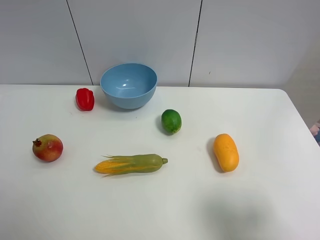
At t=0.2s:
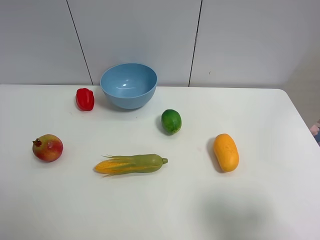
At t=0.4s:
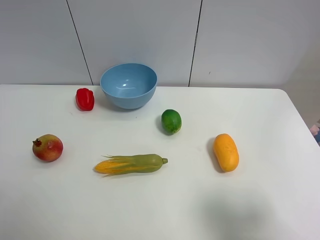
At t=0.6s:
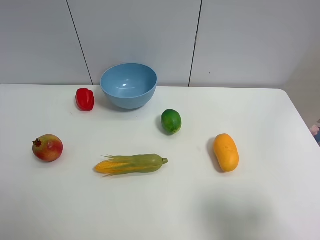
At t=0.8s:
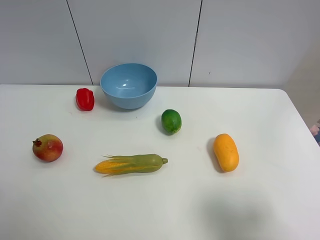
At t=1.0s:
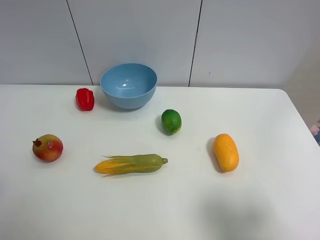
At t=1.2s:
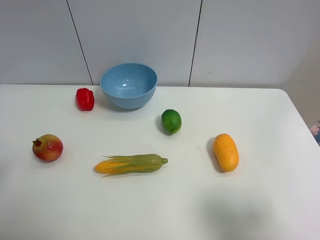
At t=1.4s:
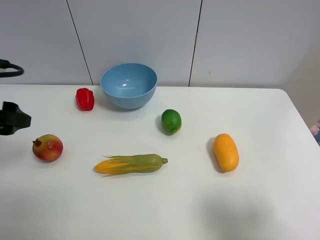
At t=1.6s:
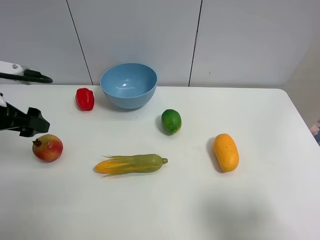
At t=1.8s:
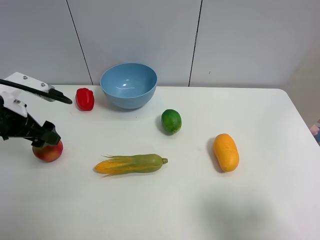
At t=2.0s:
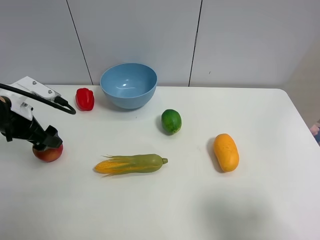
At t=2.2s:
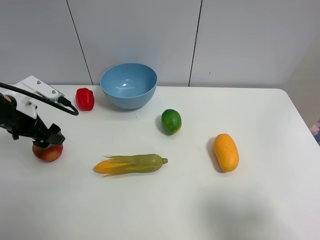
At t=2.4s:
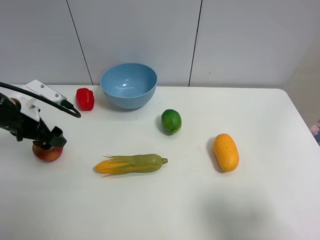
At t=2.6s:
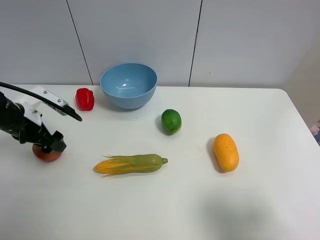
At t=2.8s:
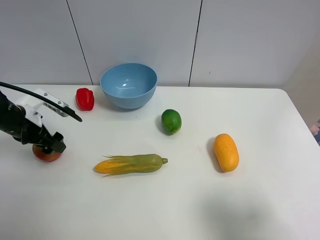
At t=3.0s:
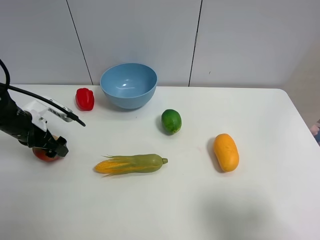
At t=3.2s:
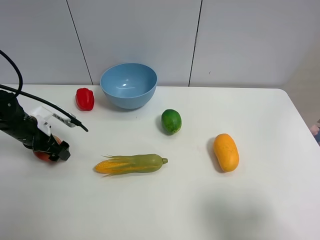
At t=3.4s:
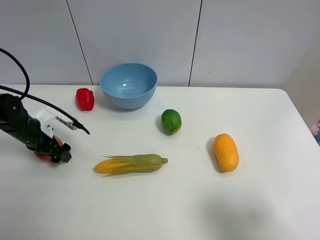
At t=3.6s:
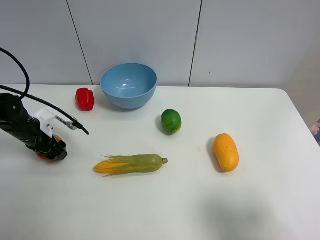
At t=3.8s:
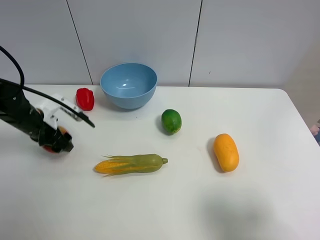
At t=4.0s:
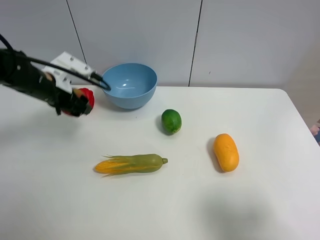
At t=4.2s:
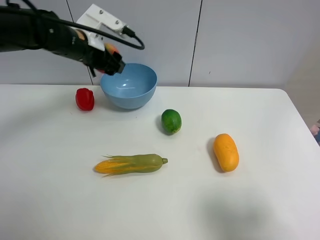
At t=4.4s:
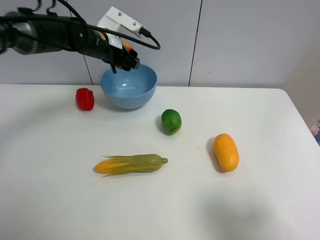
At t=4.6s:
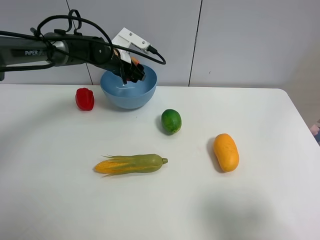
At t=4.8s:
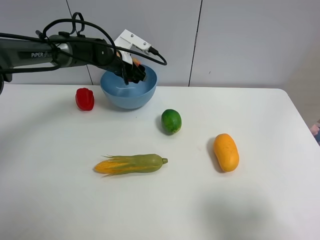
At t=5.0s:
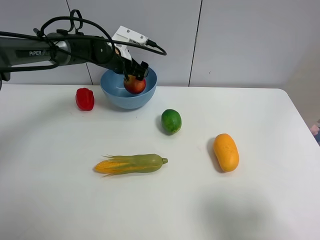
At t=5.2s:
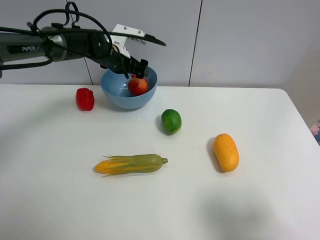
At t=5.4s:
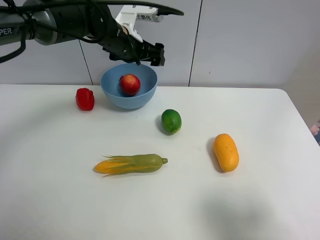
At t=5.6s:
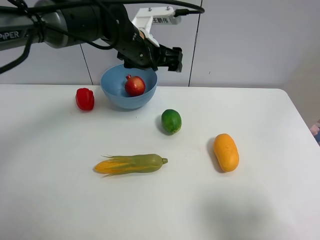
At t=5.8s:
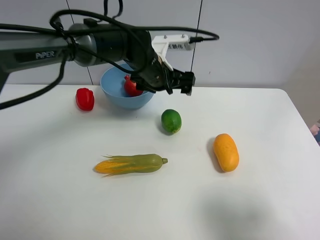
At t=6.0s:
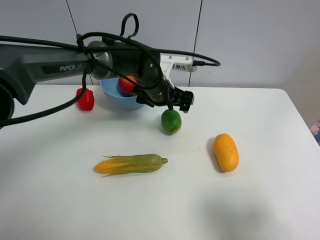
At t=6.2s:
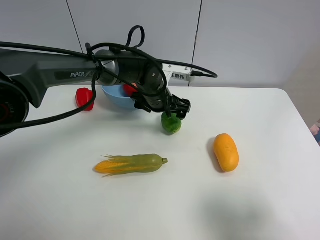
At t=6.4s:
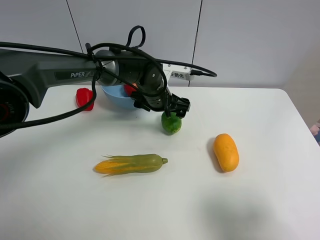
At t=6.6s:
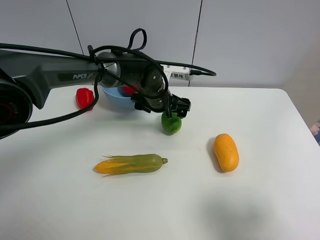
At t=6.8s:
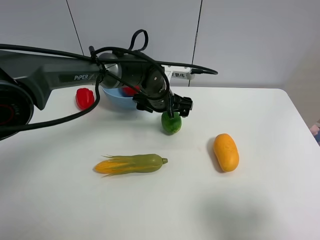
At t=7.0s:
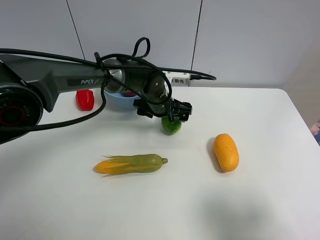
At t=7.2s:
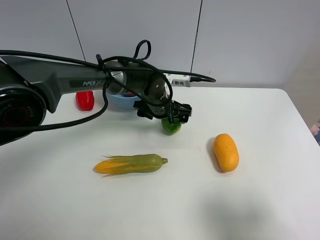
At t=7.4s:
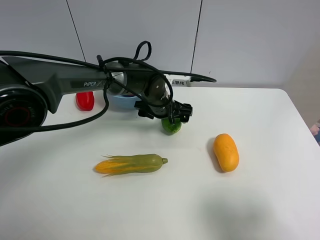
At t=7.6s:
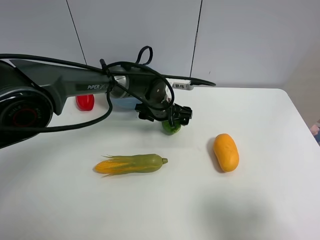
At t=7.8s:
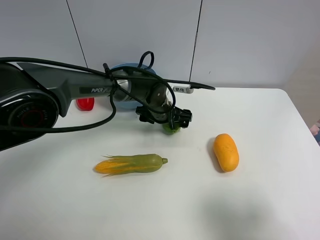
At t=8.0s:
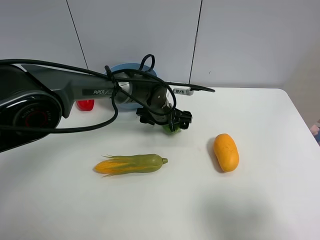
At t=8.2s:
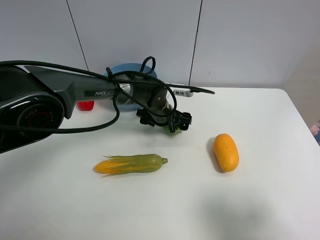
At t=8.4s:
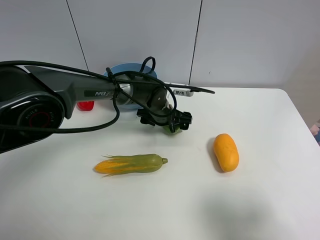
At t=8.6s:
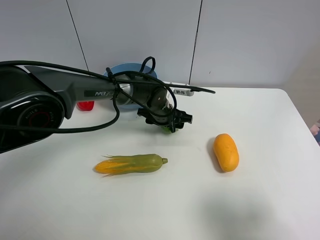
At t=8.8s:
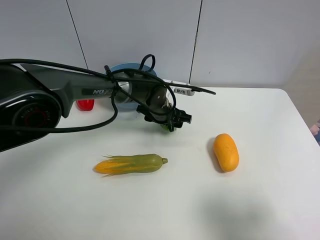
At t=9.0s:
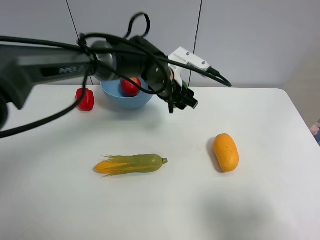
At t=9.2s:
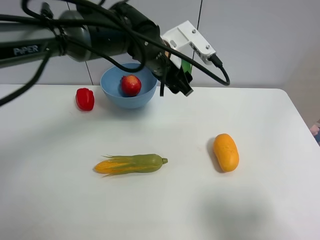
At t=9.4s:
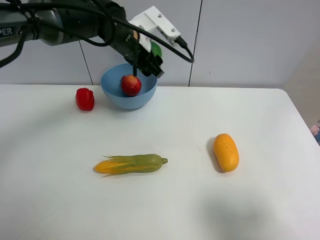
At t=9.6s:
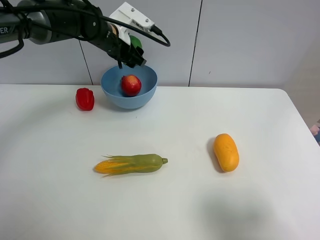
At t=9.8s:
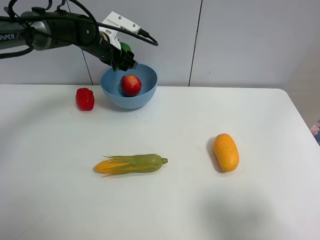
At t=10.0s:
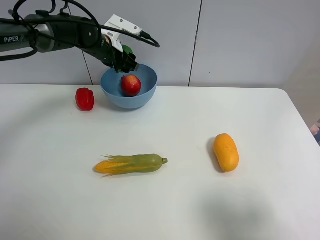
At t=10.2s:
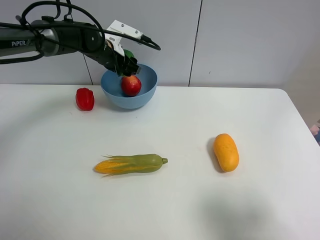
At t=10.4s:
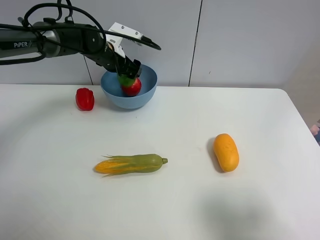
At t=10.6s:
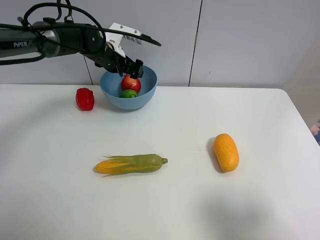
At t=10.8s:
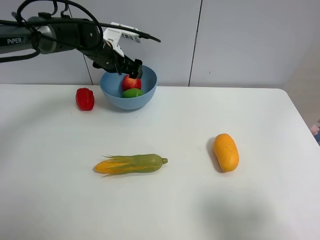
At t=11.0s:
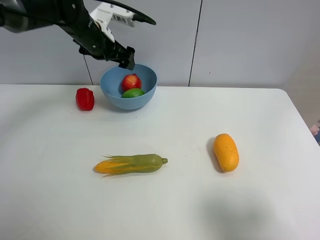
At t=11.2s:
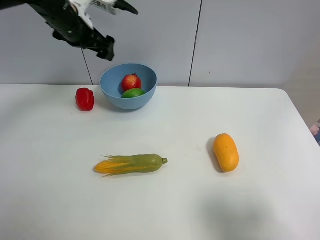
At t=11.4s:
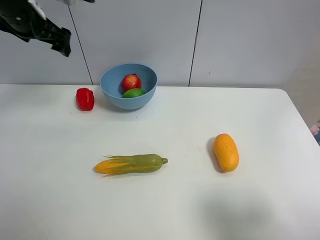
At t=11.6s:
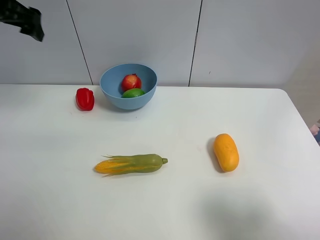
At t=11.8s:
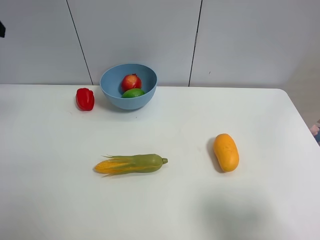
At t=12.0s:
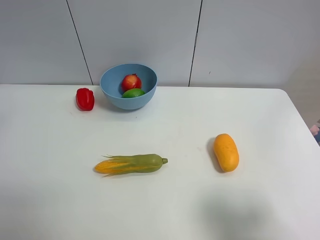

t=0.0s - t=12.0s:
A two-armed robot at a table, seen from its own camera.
Task of the whole recording: Put the three fruits on the table into a bowl.
Step, t=0.0s - t=3.6s: Grasp the pomegranate with left gripper.
Step, t=3.8s - t=5.2s: Place the pomegranate in the blue bowl with left gripper.
Step, t=5.4s - t=8.6s: Grasp the green lemon with left gripper.
Step, t=8.8s - t=10.6s: Place the green lemon in the blue bowl with left gripper.
t=0.0s - t=1.6s: The left gripper shifts about 25 cm forward.
t=1.6s - t=3.0s: The left gripper goes approximately 15 cm downward and forward.
t=3.0s - t=4.4s: The left gripper goes some 25 cm to the right, forward and upward, and closes.
t=4.4s - t=6.0s: The left gripper shifts approximately 15 cm to the right, backward and downward, and opens.
t=6.0s - t=7.6s: The left gripper shifts about 5 cm downward.
t=7.6s - t=9.0s: The left gripper goes some 10 cm upward, and closes up.
t=9.0s - t=10.4s: The left gripper travels to the left and forward by some 20 cm, and opens up.
t=10.4s - t=12.0s: The left gripper shifts roughly 40 cm backward, upward and to the left.

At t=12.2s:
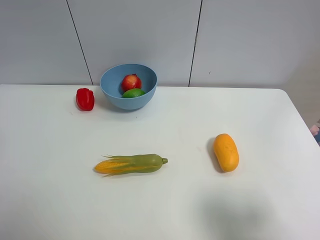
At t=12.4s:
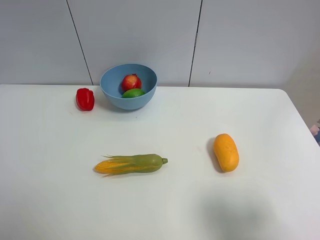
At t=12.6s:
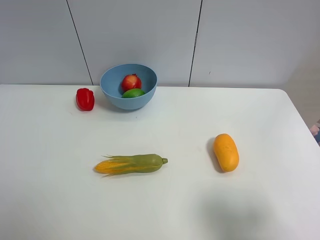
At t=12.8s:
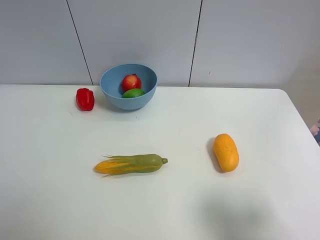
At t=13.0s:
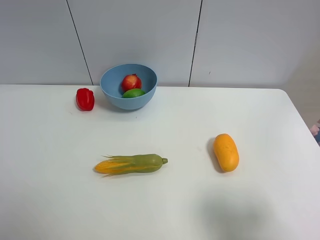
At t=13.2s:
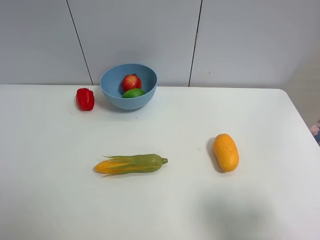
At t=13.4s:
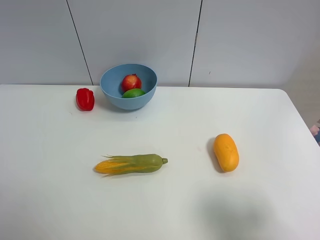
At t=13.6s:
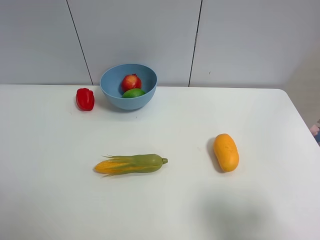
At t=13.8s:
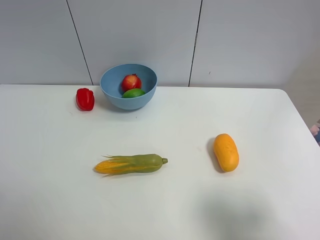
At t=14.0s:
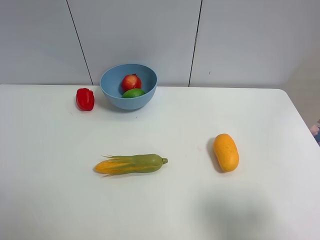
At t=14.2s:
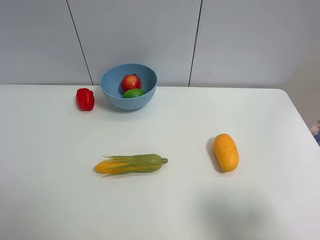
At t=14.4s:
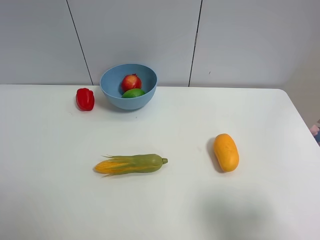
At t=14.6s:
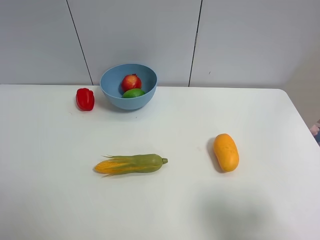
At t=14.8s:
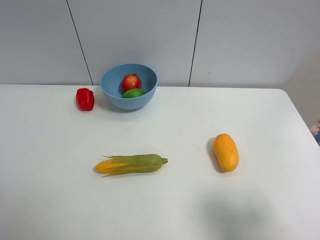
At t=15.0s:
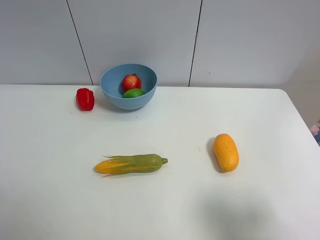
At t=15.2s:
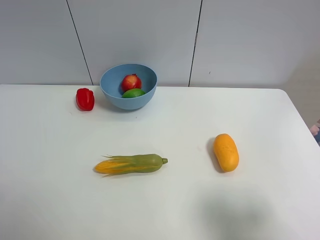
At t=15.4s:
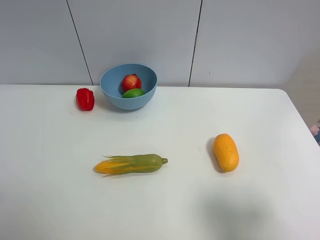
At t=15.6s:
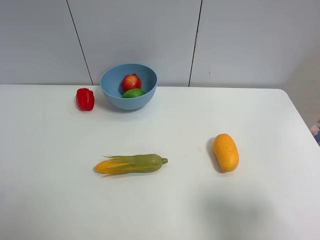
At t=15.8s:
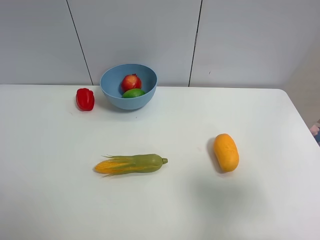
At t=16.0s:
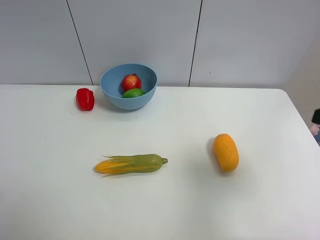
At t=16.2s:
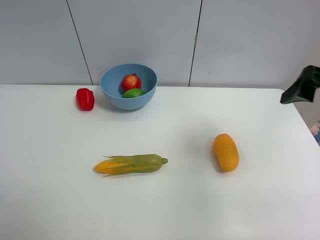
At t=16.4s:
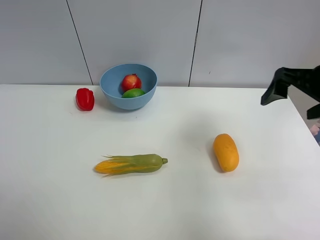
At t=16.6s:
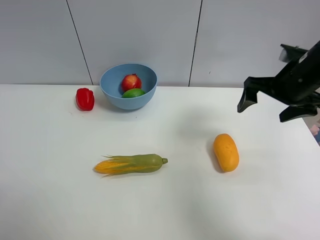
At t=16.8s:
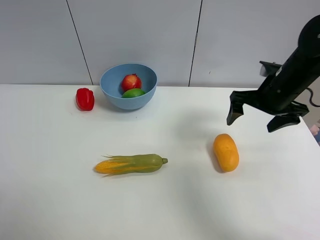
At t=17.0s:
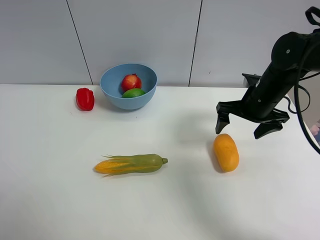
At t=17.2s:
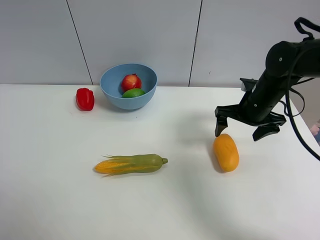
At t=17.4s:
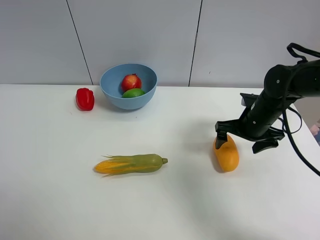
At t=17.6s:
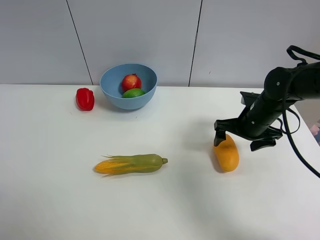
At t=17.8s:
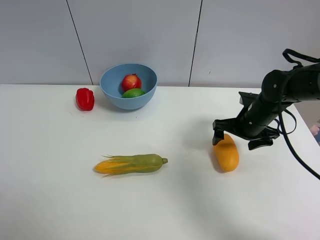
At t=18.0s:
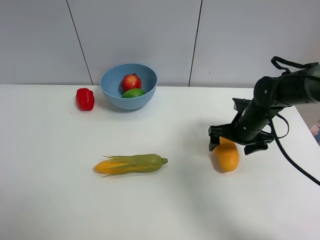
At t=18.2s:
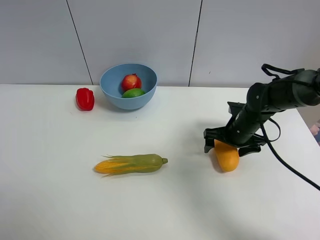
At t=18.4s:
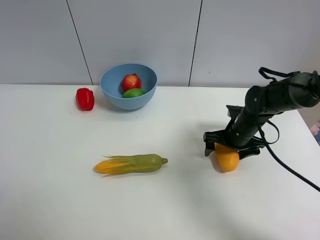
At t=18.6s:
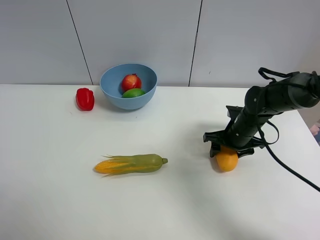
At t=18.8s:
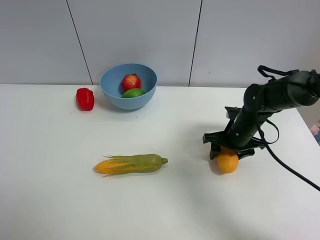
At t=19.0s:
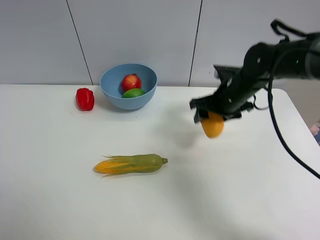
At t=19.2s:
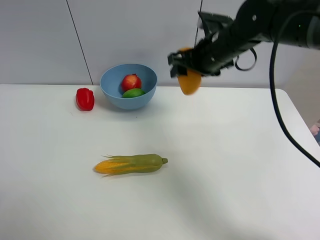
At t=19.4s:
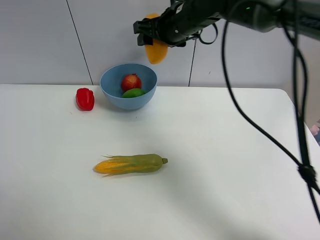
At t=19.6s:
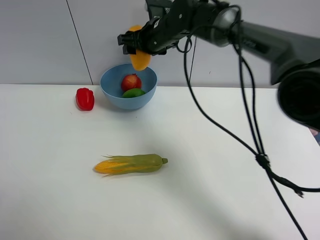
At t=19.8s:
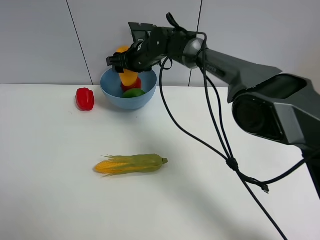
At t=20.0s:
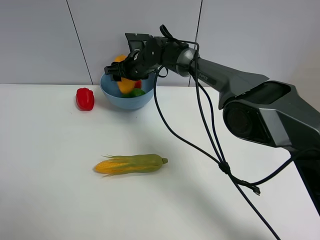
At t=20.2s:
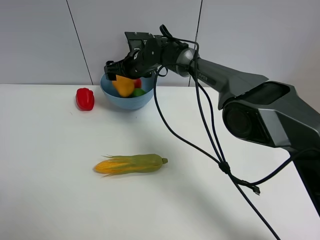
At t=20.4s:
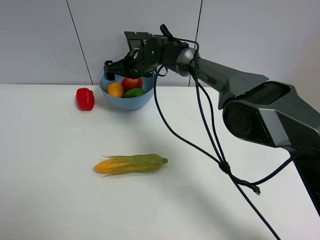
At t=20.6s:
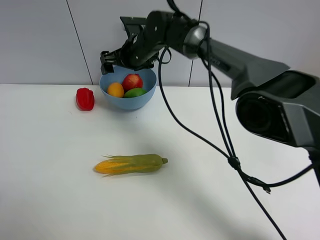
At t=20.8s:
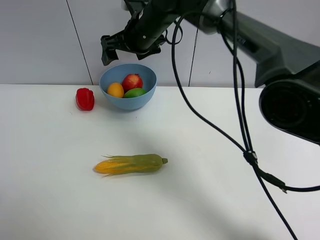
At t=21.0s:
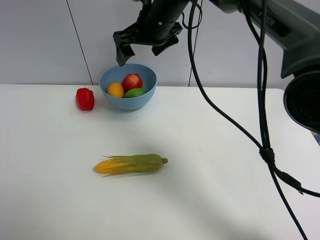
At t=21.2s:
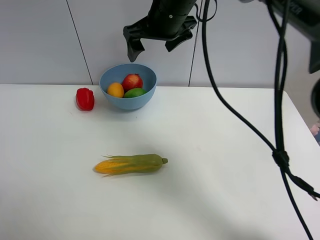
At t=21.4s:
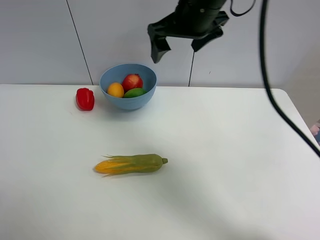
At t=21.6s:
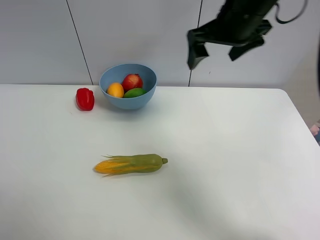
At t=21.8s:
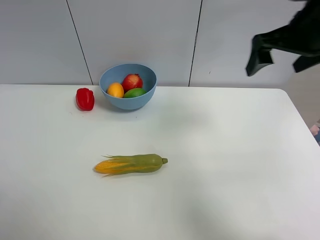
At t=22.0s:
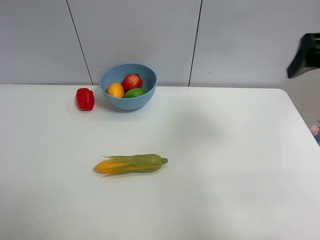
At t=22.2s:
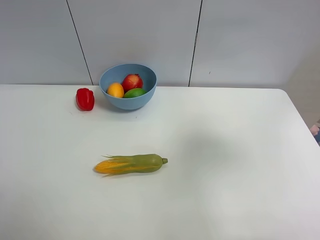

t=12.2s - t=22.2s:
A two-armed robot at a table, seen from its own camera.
Task of the whole recording: Put the three fruits on the table into a bowl.
Step, t=12.2s - t=18.6s: Grasp the mango with right gripper.
Step, t=18.8s - t=20.2s: Place the mango in the blue bowl with right gripper.
t=13.6s - t=15.0s: Both grippers stay put.
t=15.0s - t=16.4s: The right gripper goes about 25 cm forward.
t=16.4s - t=18.0s: The right gripper moves downward, some 20 cm.
t=18.0s - t=19.4s: The right gripper is displaced to the left, upward and forward by approximately 25 cm, and closes up.
t=19.4s - t=20.8s: The right gripper travels to the left by some 5 cm, reaches approximately 10 cm downward, then returns, and opens its fingers.
t=20.8s - t=22.2s: The right gripper heads to the right and backward, covering about 40 cm.
